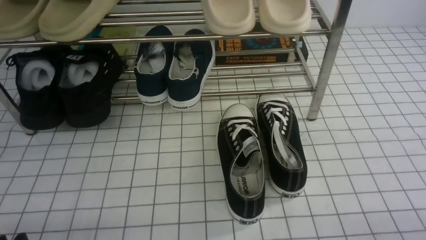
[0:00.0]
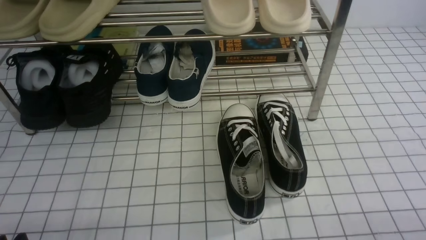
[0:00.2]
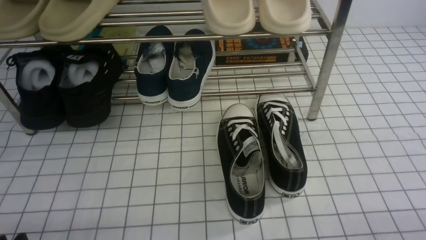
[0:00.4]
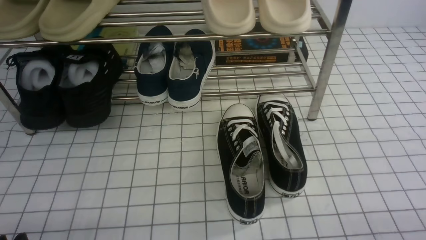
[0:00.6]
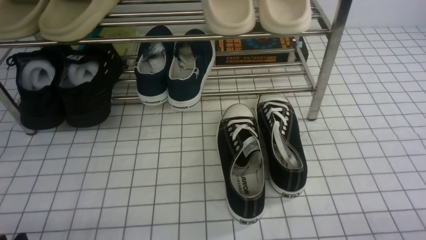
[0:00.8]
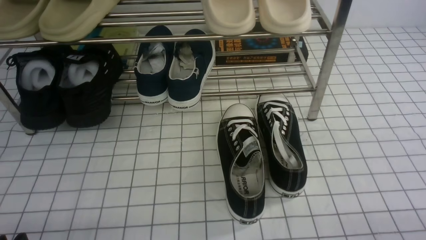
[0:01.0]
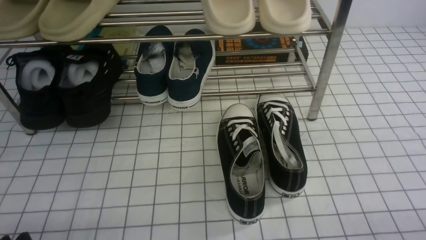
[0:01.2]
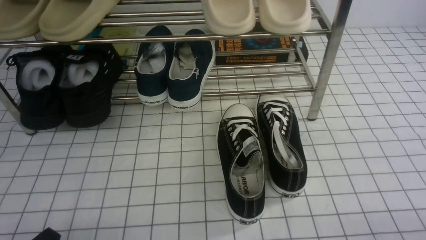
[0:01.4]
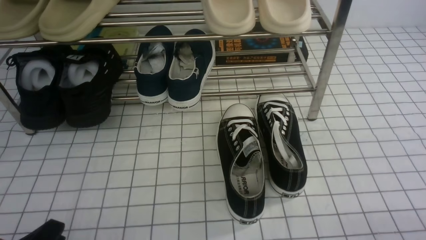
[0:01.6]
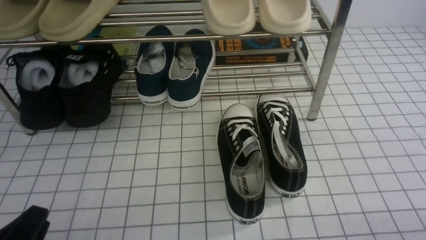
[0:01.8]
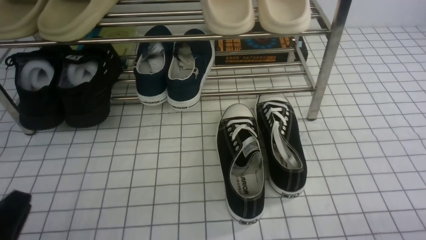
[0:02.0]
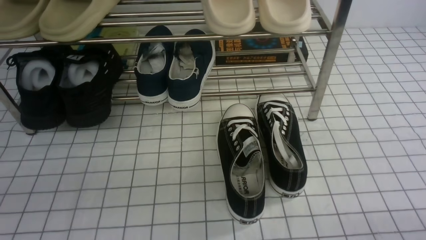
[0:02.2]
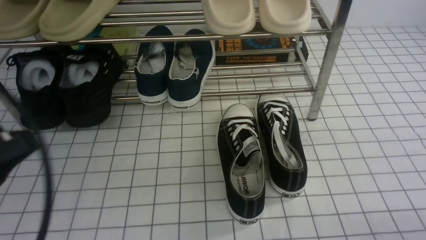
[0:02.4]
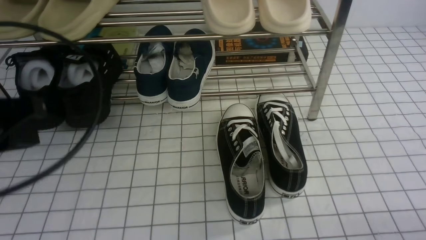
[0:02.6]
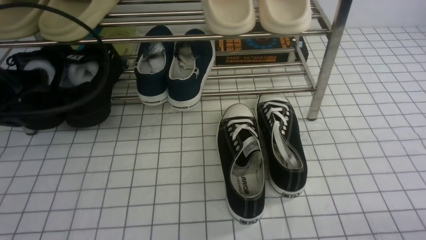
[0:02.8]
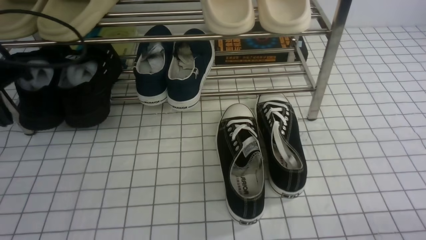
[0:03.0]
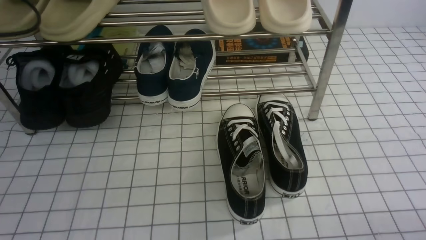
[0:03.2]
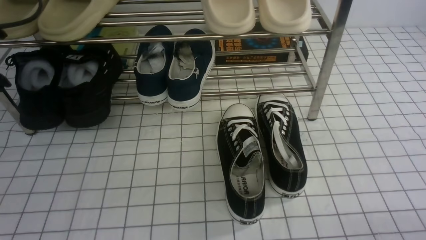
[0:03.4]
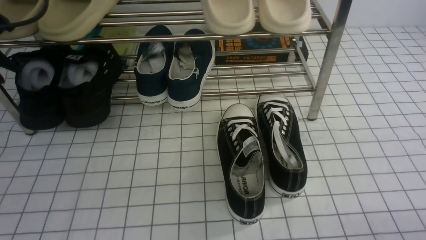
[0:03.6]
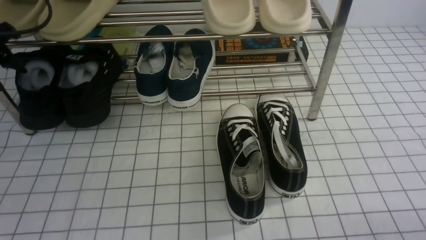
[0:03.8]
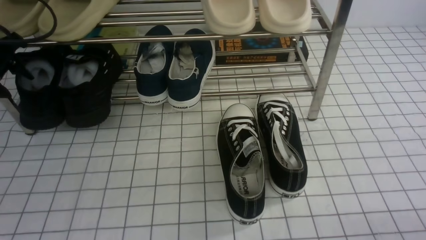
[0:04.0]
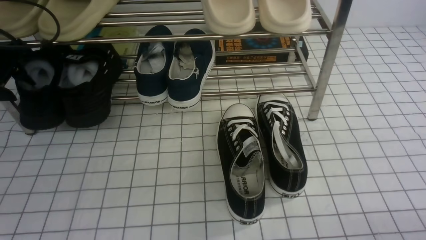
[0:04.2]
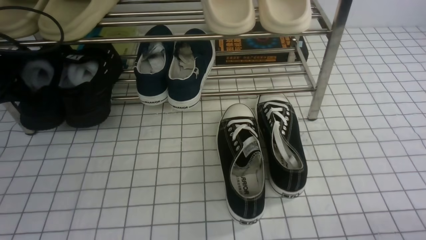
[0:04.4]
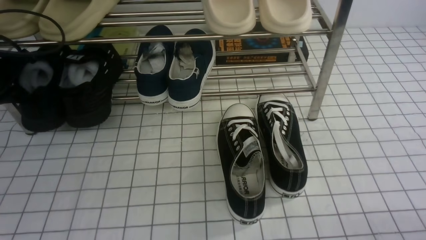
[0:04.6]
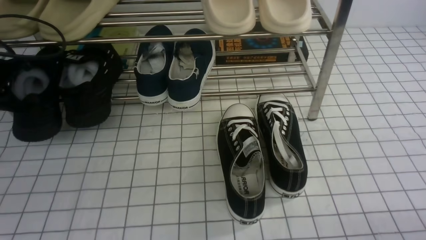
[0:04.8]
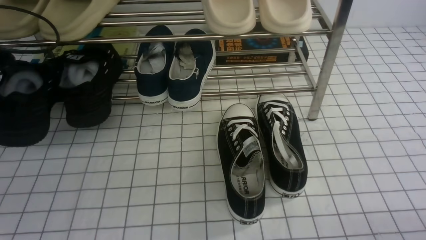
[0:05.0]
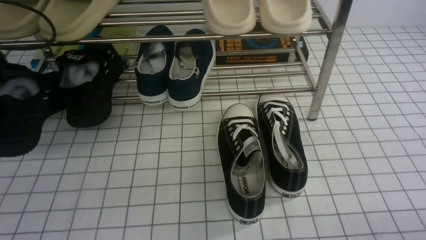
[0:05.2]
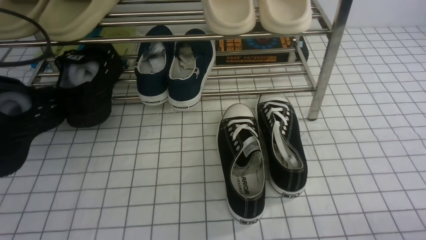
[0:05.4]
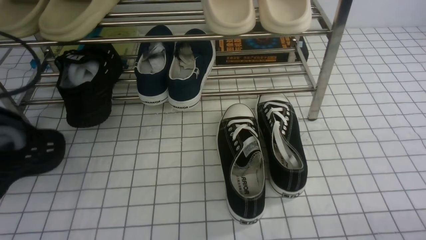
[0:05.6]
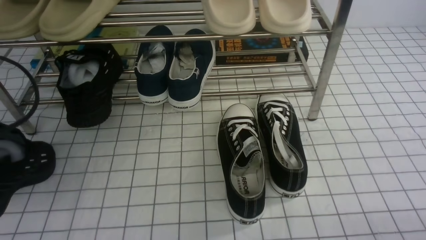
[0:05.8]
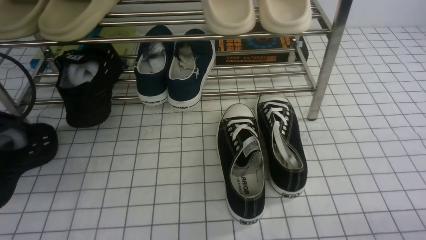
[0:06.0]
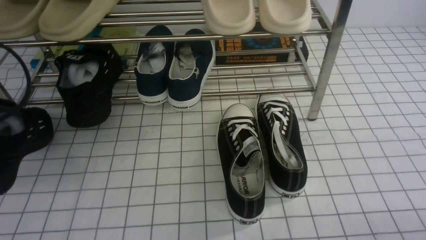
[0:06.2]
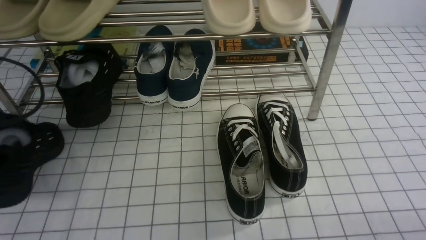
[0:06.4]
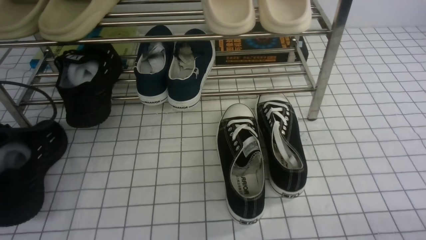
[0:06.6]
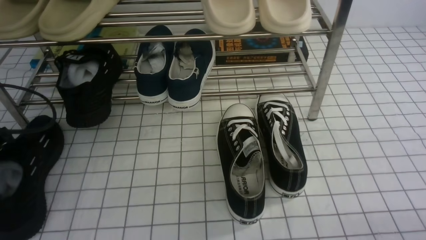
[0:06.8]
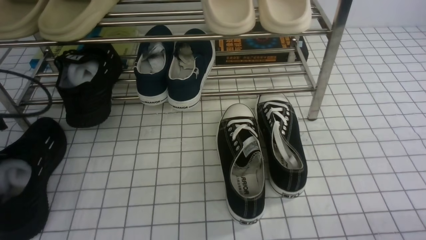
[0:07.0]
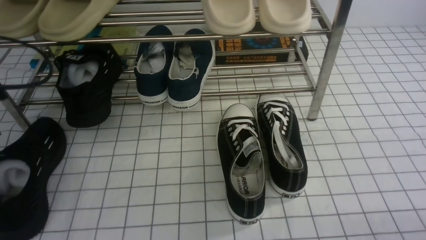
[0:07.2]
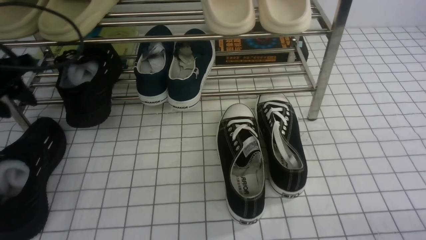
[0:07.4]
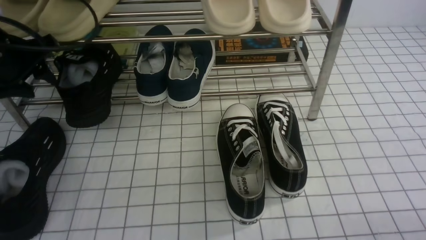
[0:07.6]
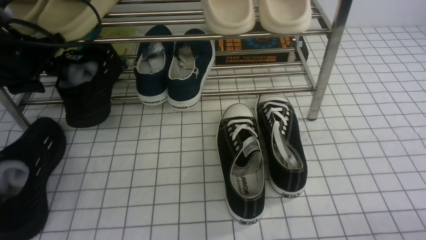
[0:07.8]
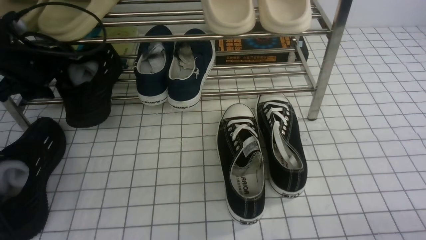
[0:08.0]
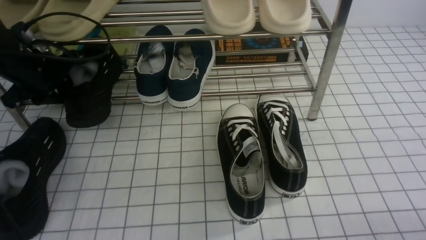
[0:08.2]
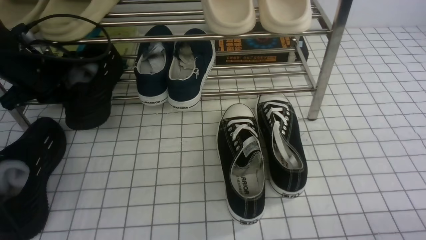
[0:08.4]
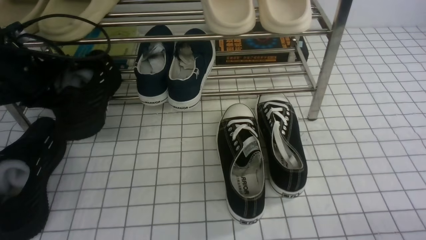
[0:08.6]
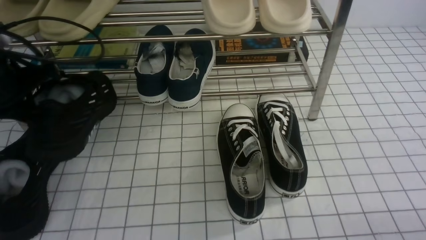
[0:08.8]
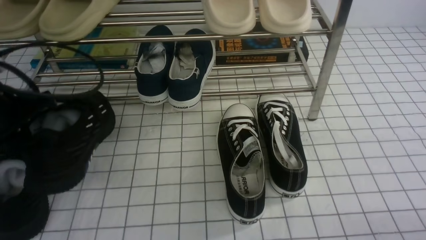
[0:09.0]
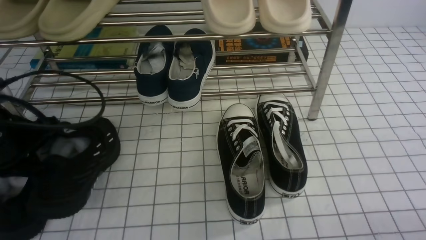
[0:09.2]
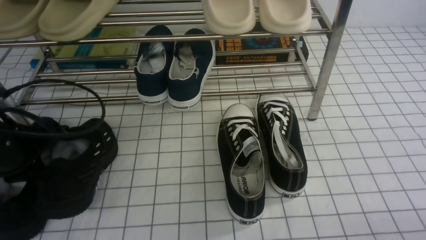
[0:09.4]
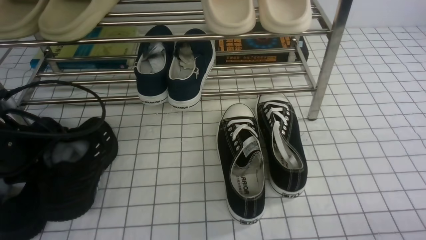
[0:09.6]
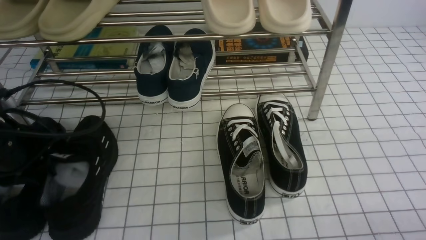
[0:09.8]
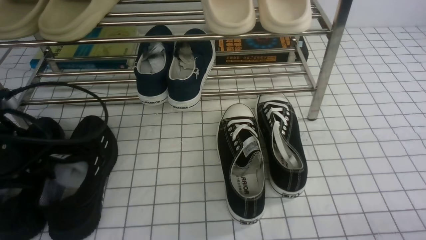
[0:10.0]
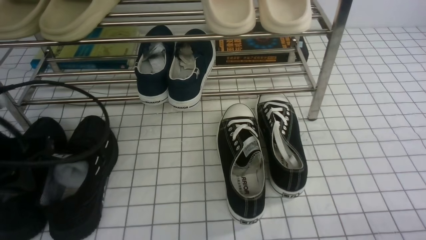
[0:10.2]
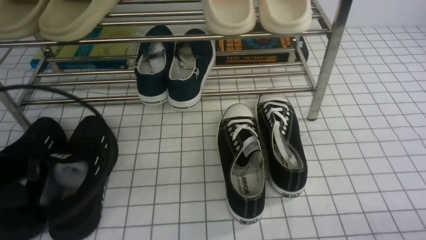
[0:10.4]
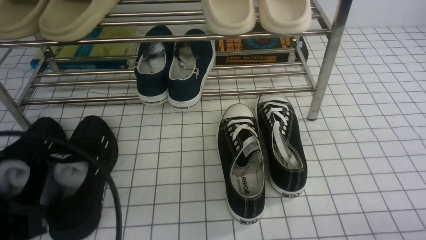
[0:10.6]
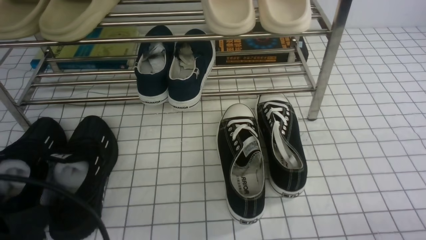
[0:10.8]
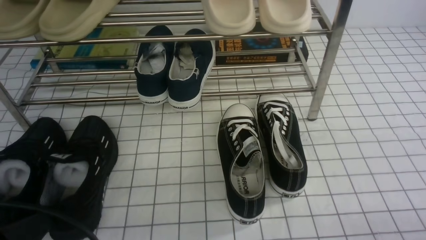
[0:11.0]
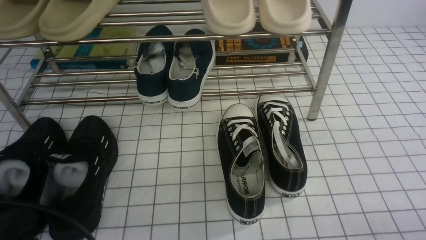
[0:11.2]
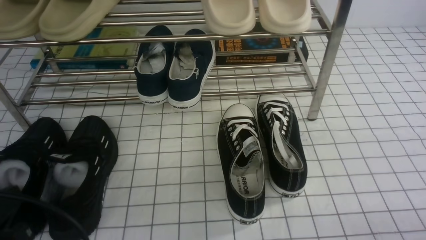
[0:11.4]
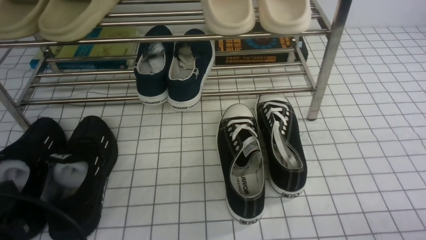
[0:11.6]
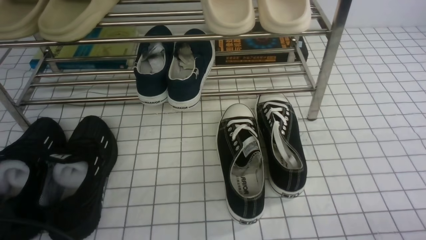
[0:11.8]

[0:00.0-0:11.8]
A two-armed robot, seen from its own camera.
Step, 0.0 to 4.4 s: use the left arm to clamp a shoe on the left side of the shoe rack.
Step, 4.6 to 7.0 s: Use your left arm to remove the clamped shoe from the shoe rack and put it down.
Step, 7.2 to 8.2 s: use the left arm to clamp a shoe on the left side of the shoe rack.
Step, 8.6 to 10.2 s: Use your left arm to remove the clamped shoe from the shoe rack and put it down.
1.4 to 3.0 s: The left gripper moves forward and upward, roughly 30 cm, and closes.
3.0 to 4.4 s: The left gripper moves forward, downward and to the left, some 15 cm, and opens up.
4.4 to 6.0 s: The left gripper is displaced backward by about 15 cm, and closes.
6.0 to 7.4 s: The left gripper heads forward, covering roughly 10 cm, and opens up.
7.4 to 8.8 s: The left gripper closes its fingers.
8.8 to 10.4 s: The left gripper heads backward, covering approximately 15 cm, and opens and closes again.
10.4 to 11.8 s: The left gripper moves backward and downward, approximately 15 cm.

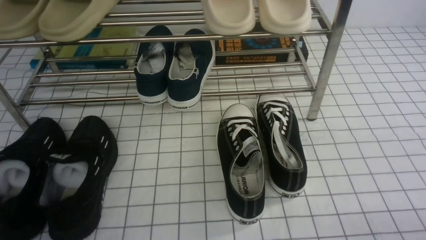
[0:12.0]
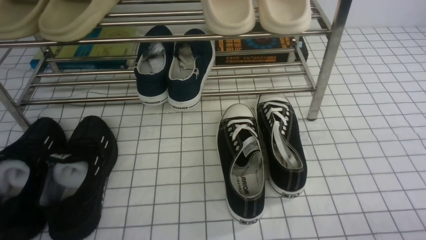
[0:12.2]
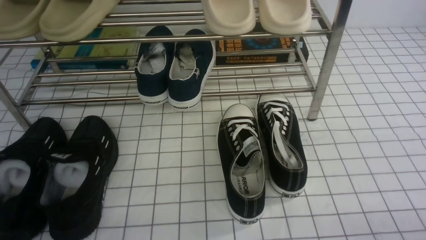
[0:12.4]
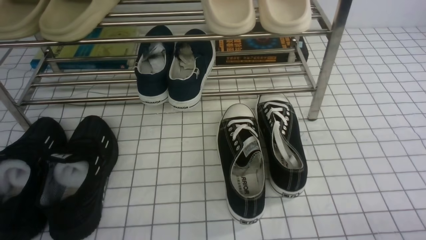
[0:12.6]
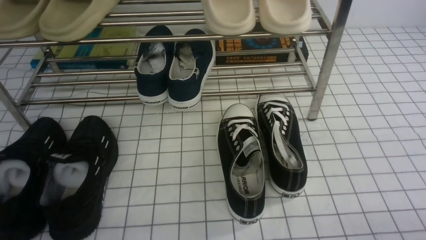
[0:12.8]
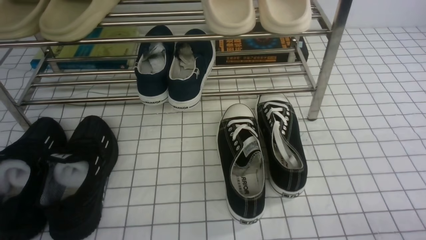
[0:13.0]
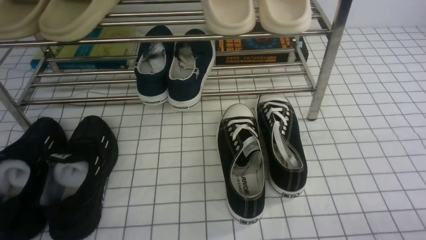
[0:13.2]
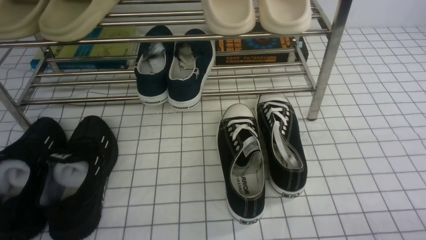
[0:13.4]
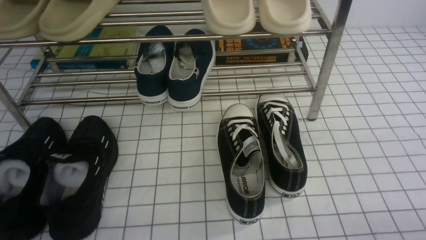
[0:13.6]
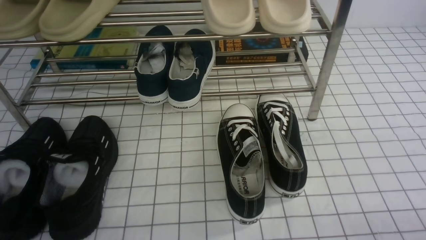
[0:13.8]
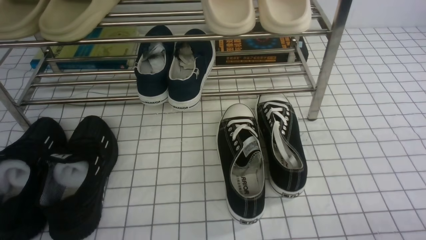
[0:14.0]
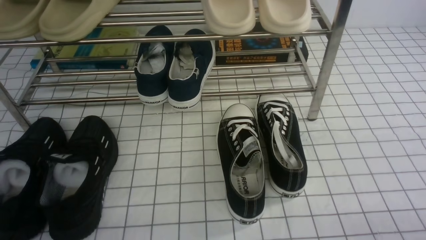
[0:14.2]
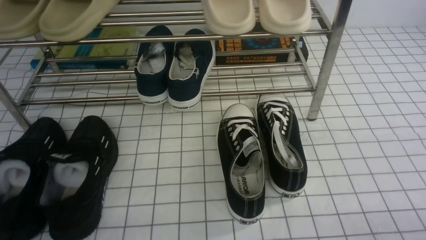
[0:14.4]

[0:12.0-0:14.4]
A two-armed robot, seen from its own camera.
13.2 to 14.4 s: Both grippers stay put.

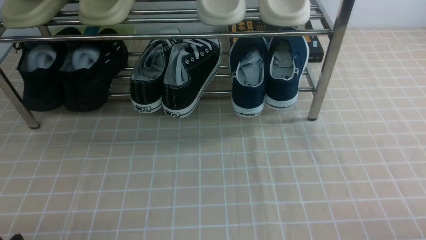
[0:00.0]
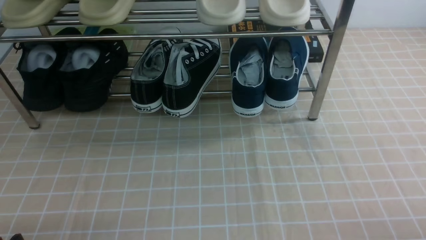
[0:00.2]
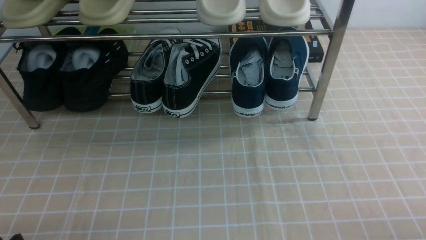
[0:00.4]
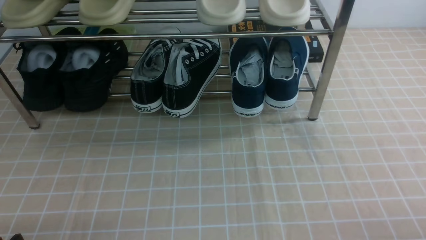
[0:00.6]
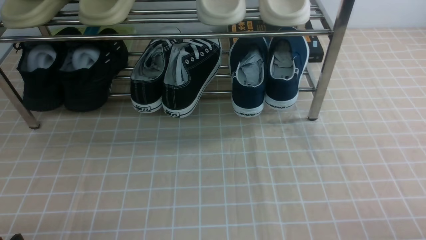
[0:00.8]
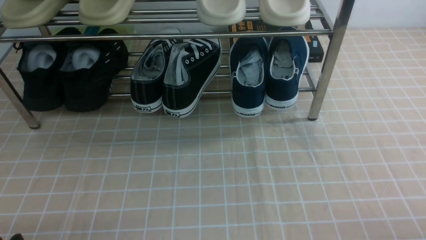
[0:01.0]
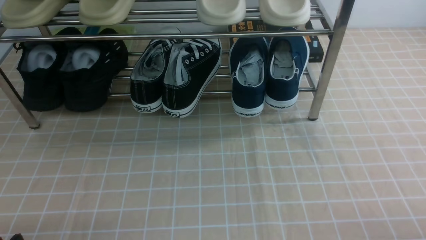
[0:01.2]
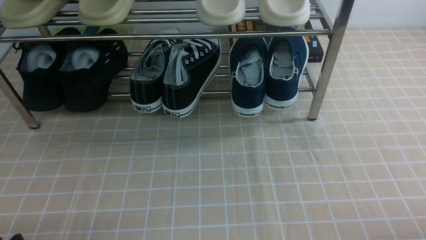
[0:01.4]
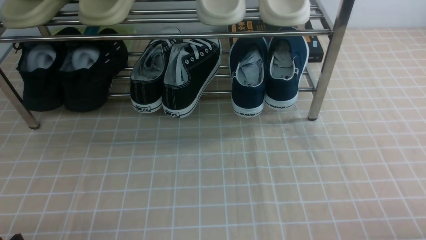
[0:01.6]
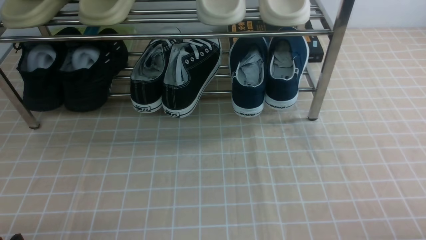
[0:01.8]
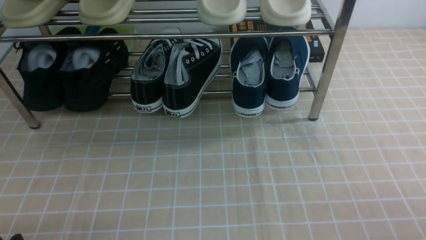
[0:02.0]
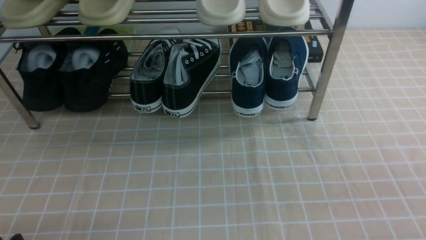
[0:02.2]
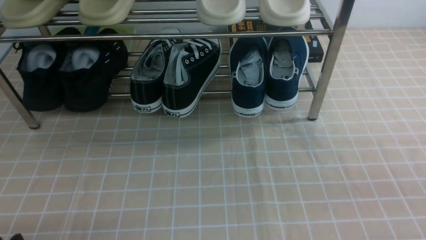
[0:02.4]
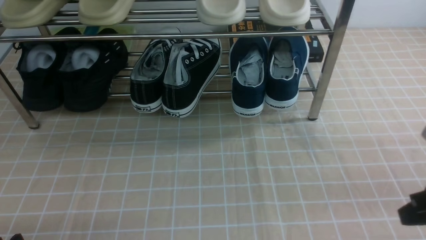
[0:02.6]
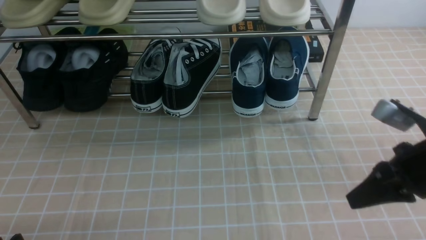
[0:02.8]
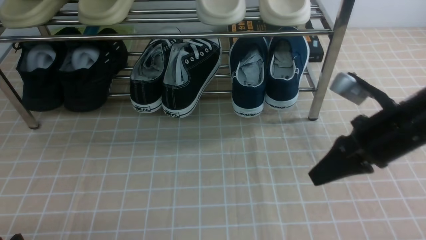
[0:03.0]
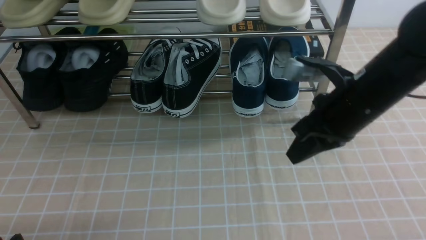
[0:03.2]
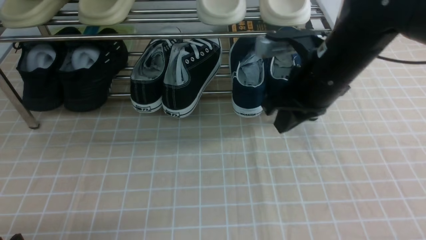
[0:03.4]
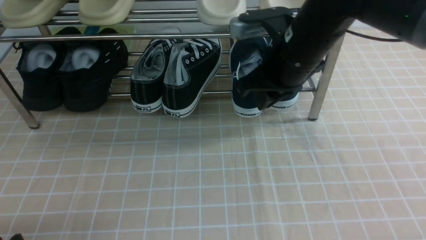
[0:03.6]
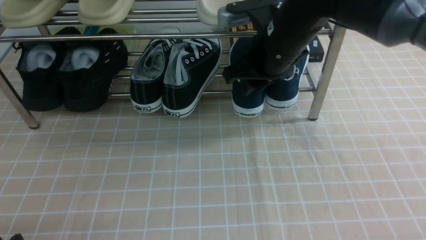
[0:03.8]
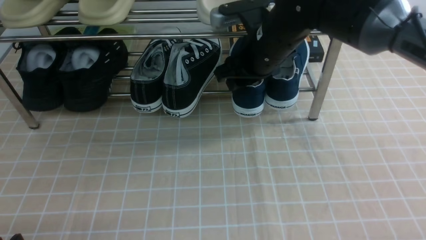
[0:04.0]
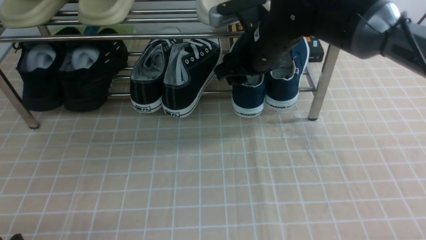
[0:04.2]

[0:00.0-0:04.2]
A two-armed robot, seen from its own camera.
1.4 to 2.8 s: The right gripper goes roughly 20 cm forward and upward, and closes.
2.8 to 4.2 s: The right gripper is displaced to the left and forward by some 25 cm, and opens.
